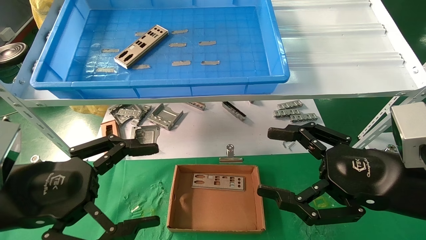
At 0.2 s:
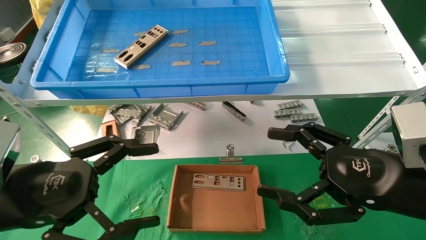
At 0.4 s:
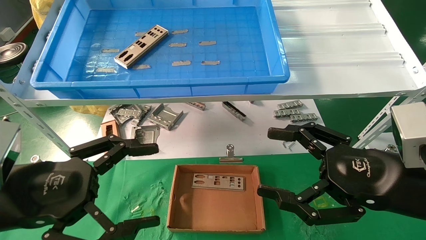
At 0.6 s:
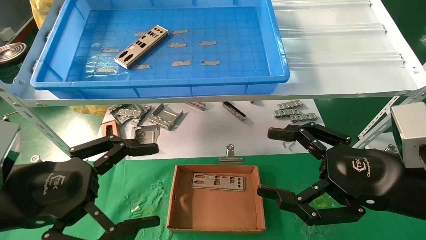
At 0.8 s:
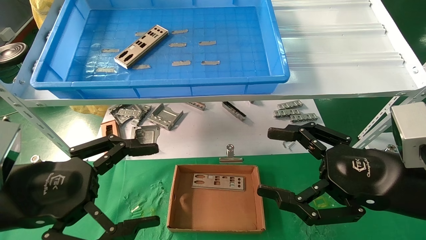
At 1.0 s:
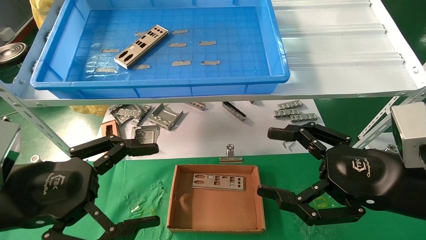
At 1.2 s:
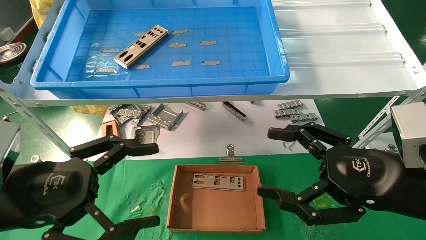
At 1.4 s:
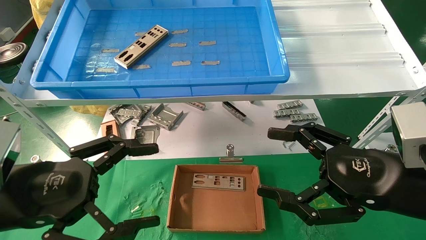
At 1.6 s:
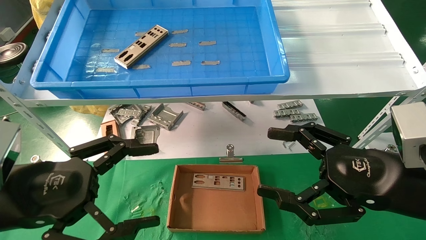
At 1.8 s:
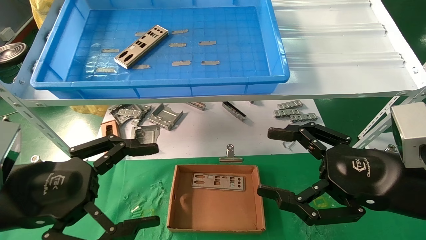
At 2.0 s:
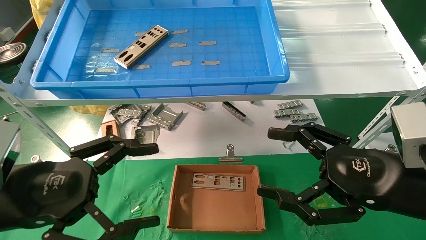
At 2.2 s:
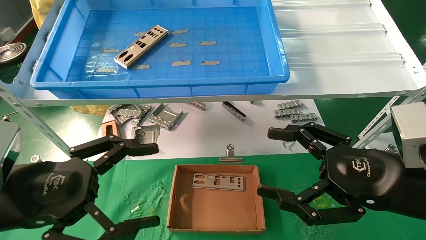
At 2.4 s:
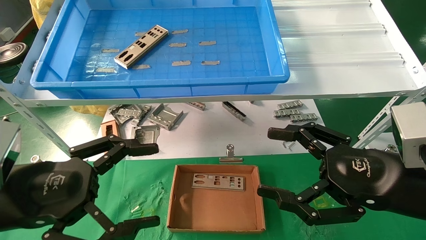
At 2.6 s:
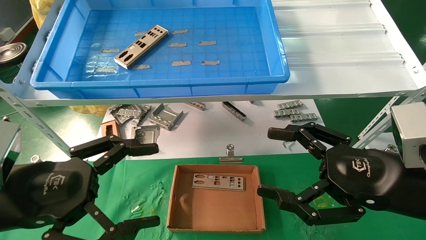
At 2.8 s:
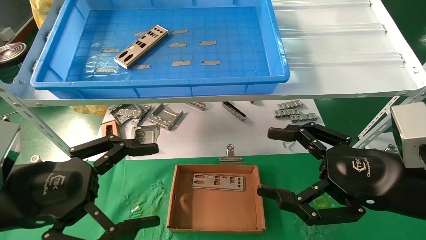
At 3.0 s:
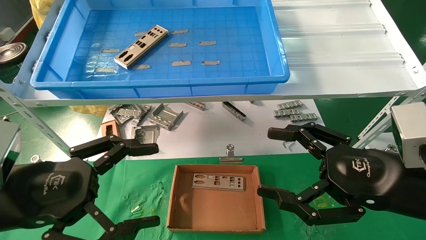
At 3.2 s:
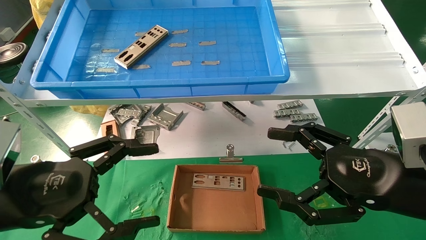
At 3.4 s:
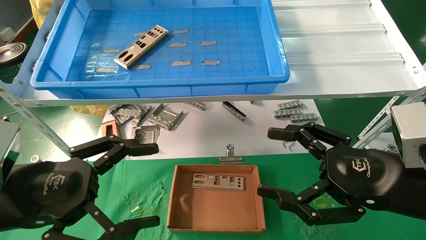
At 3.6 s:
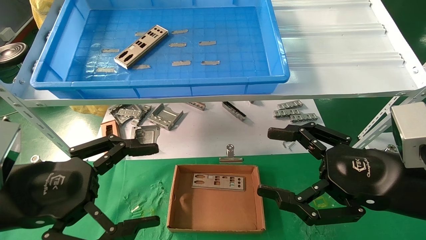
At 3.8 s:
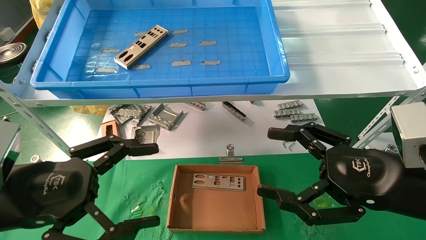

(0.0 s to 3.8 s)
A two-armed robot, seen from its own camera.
Task of the whole recording: pick up the parts on the tray and put them in the cardboard box.
0.0 s - 3.8 s: Both grippers stay about where they are.
